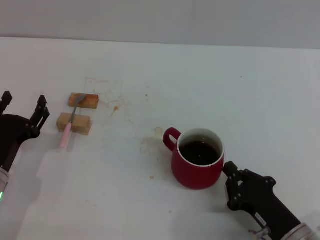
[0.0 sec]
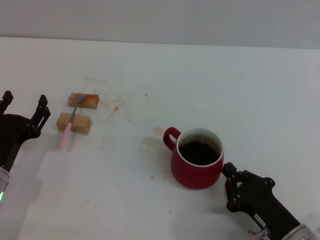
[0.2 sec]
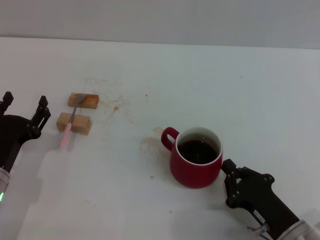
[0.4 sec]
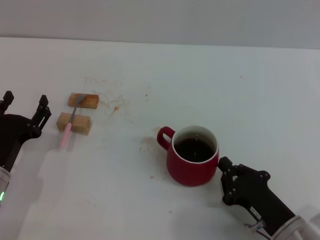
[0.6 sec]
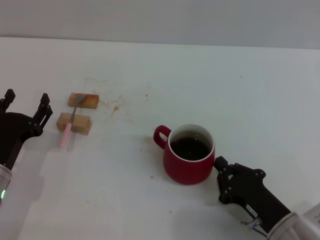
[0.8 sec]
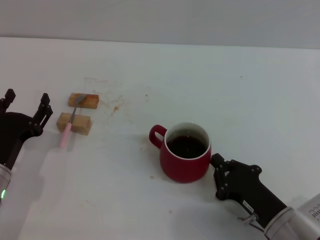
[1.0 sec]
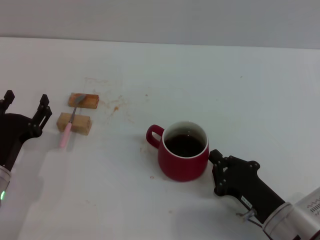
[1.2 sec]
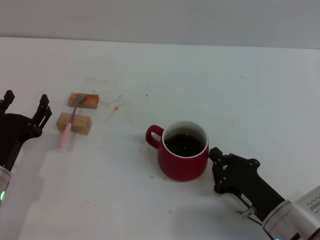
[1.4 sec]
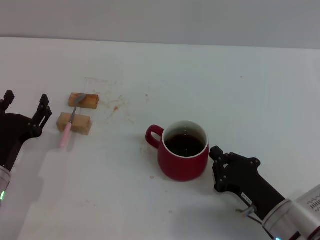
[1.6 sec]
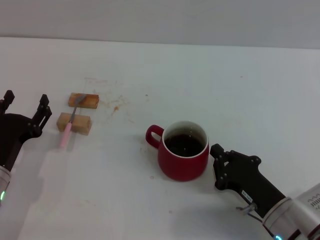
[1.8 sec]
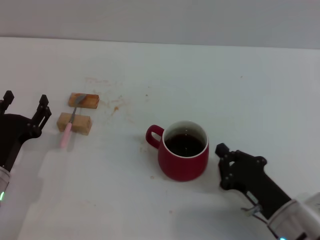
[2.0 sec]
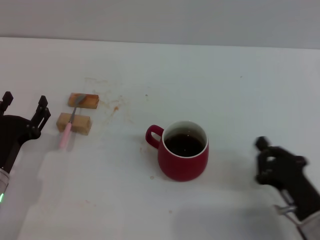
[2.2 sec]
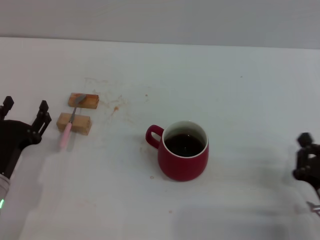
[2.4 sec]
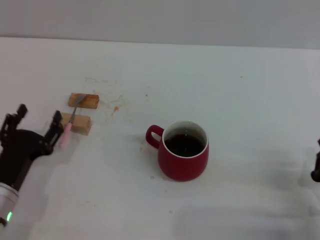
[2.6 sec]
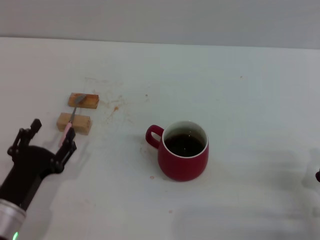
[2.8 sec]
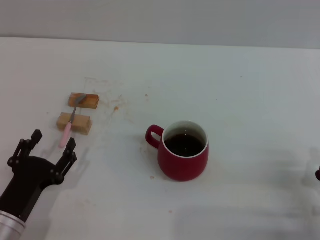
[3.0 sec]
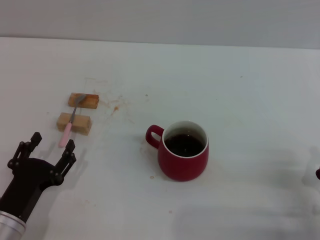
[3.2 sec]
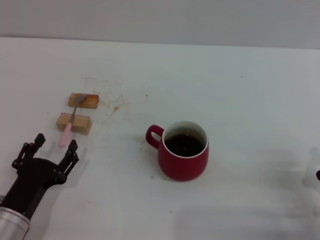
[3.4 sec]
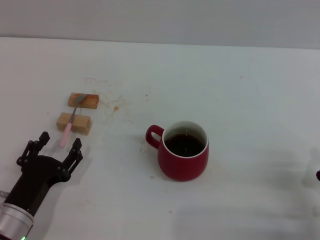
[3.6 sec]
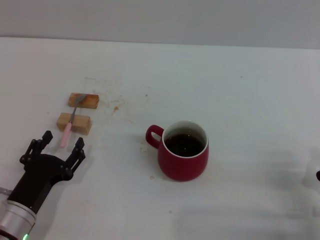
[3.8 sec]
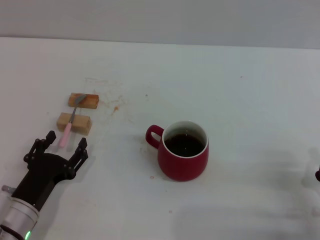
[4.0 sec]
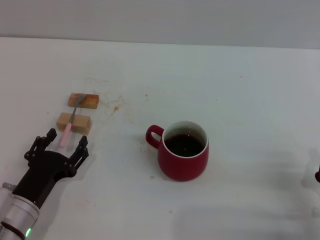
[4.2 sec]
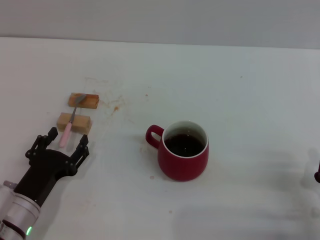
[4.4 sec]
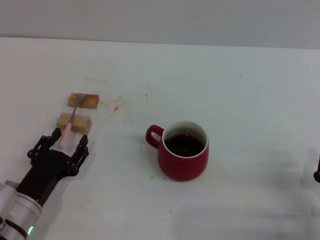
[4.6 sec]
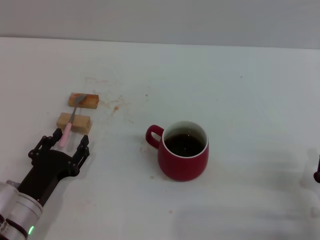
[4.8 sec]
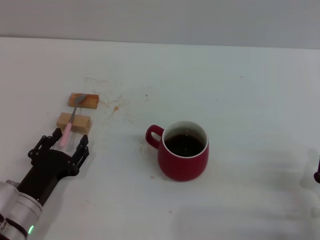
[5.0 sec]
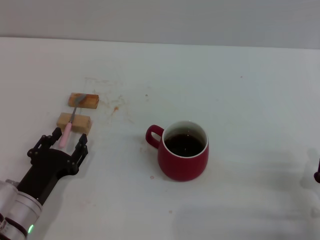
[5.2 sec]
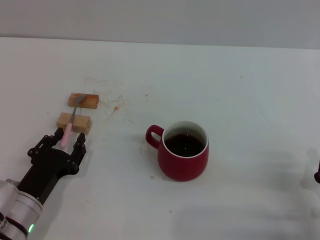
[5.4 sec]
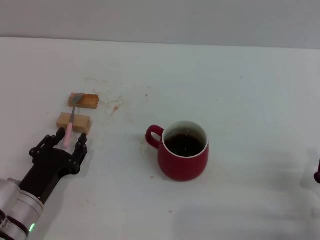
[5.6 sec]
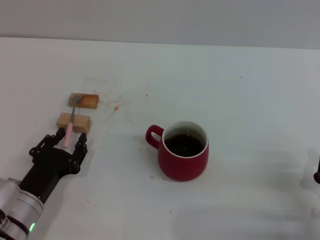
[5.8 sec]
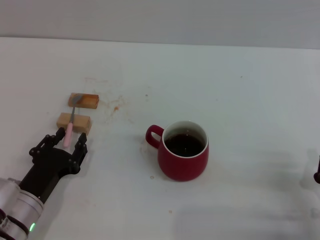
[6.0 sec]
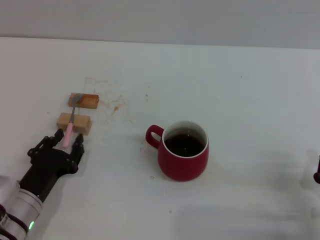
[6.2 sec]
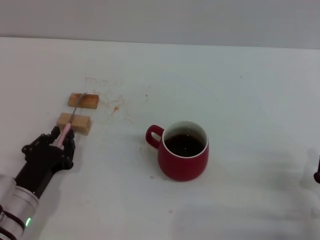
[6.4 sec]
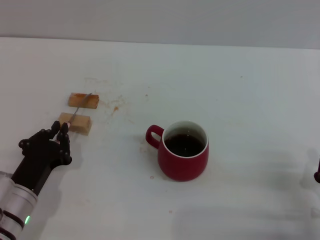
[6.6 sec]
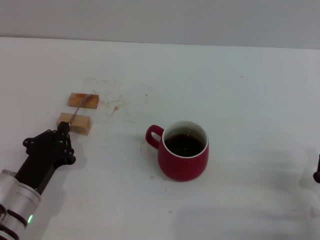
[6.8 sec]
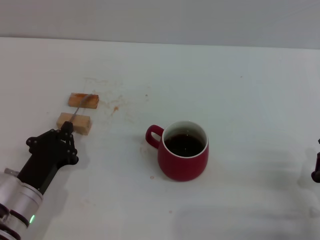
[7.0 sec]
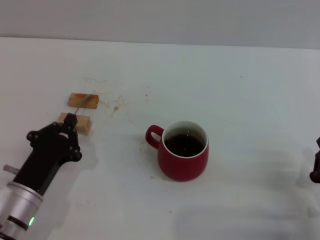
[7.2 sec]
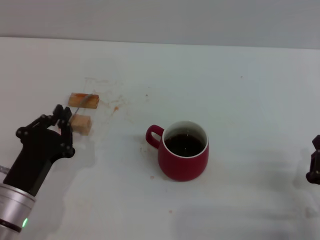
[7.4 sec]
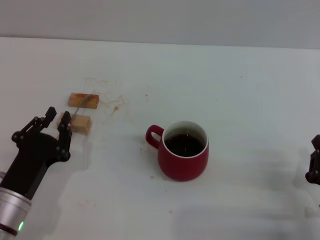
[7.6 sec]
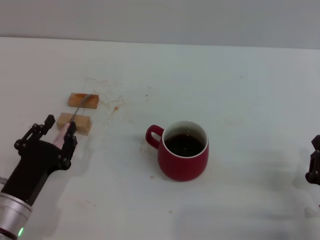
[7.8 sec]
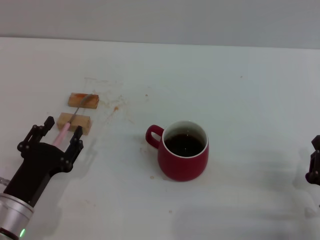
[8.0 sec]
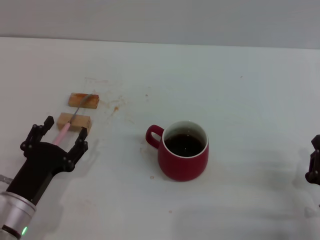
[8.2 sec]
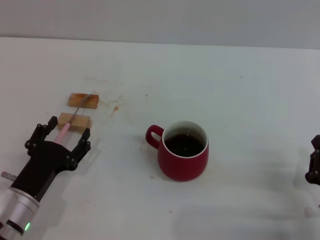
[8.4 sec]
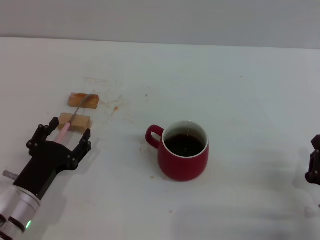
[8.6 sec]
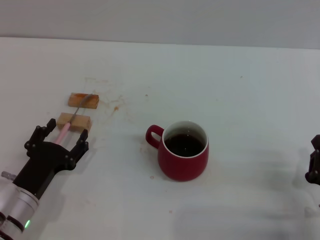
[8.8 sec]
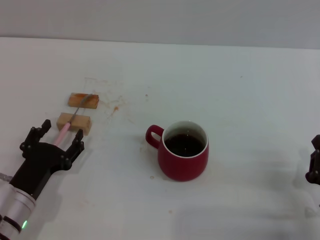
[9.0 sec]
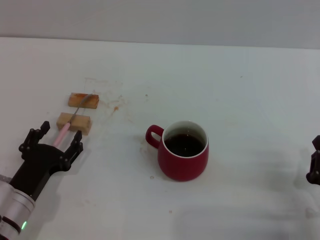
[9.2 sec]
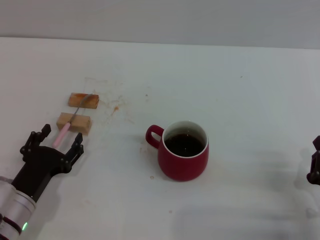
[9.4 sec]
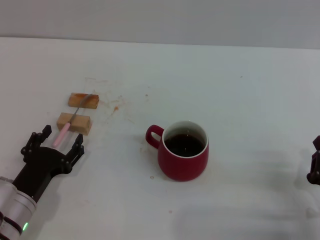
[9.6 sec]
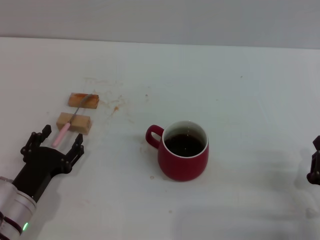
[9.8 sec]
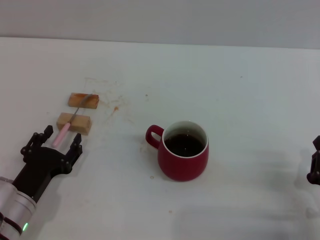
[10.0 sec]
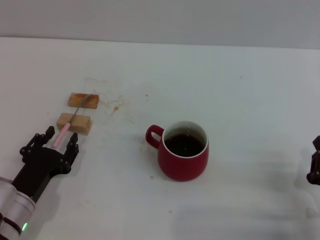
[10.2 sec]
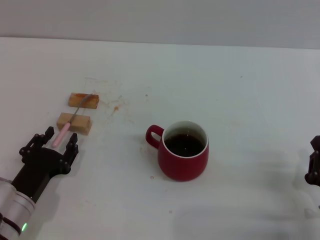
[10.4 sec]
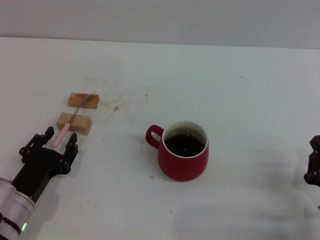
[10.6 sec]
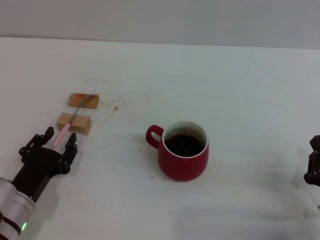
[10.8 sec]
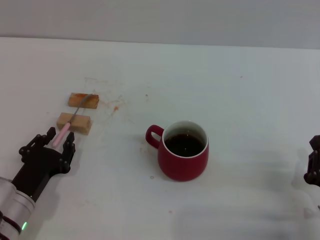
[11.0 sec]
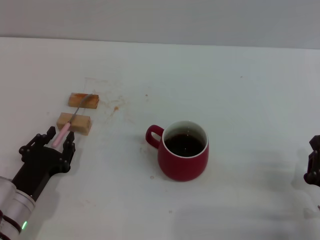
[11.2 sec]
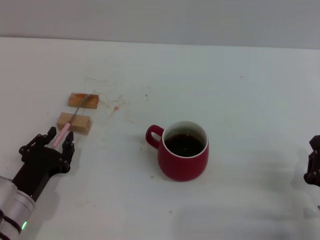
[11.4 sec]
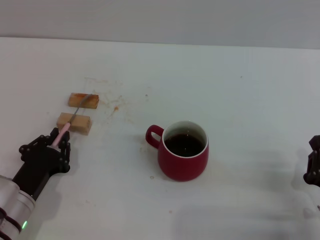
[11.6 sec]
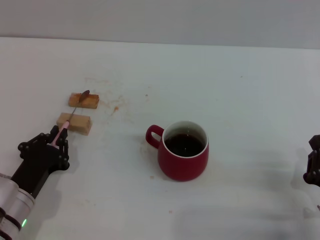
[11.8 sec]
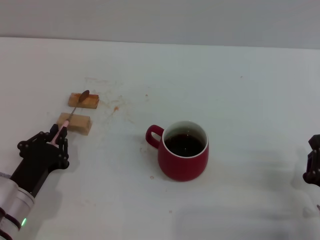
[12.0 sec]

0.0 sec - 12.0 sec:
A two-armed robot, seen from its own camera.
Task of the whole recording: Move the red cup to the center, lift the pink spoon, stir it three times in the cup, and put the spoon into the cup.
Step, 2.2 sec - 11.6 sec: Grasp the spoon with left gripper.
0.0 sec - 1.6 sec: There are only small adjustments of the grippers.
1.6 sec - 3.0 sec: The left gripper is displaced backward by about 5 cm; the right gripper is displaced to the right by approximately 10 cm.
3.0 sec - 4.4 sec: The grippers stay close to where they were, moving slightly.
4.4 sec - 6.0 sec: The left gripper closes its fingers.
6.0 sec - 7.6 sec: The left gripper closes its fingers.
7.6 sec - 9.0 sec: The left gripper opens up.
9.0 sec - 10.4 sec: Neither gripper changes place.
10.4 sec - 12.0 sec: The left gripper closes its fingers.

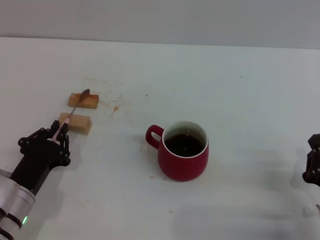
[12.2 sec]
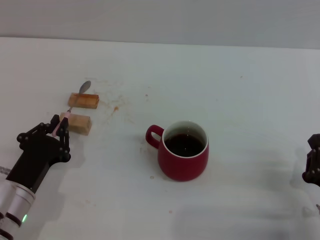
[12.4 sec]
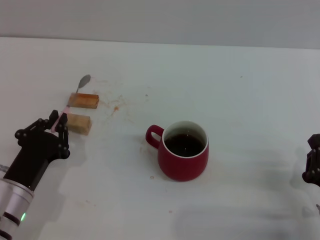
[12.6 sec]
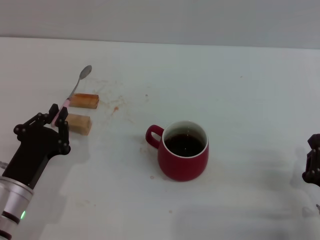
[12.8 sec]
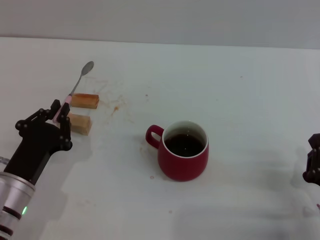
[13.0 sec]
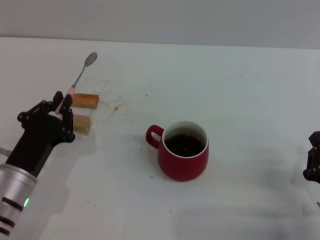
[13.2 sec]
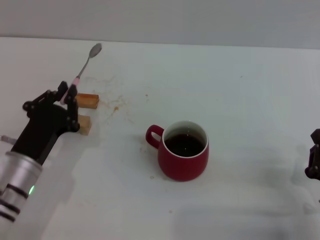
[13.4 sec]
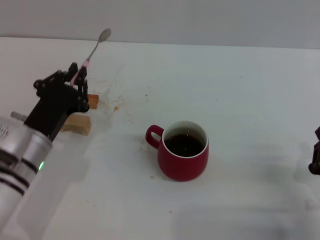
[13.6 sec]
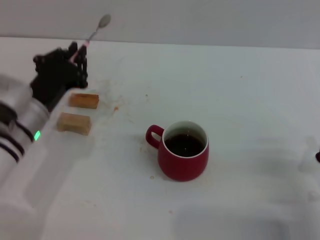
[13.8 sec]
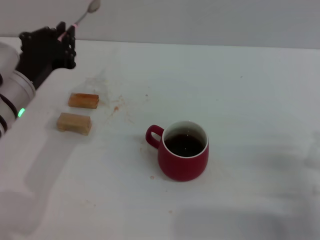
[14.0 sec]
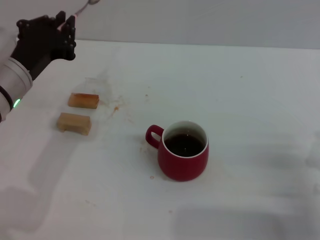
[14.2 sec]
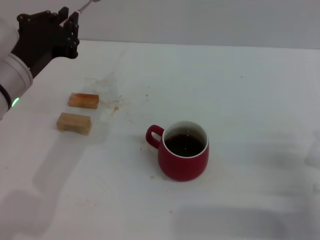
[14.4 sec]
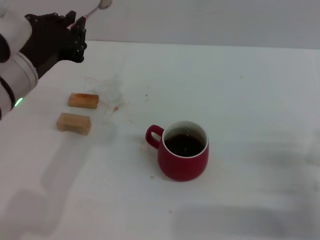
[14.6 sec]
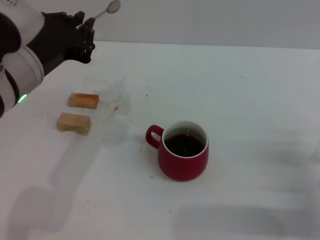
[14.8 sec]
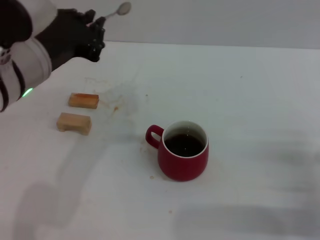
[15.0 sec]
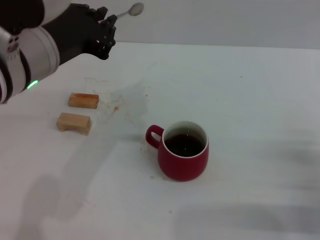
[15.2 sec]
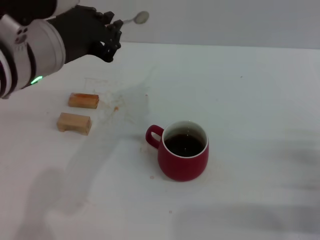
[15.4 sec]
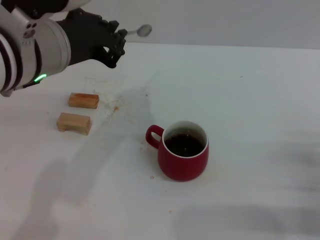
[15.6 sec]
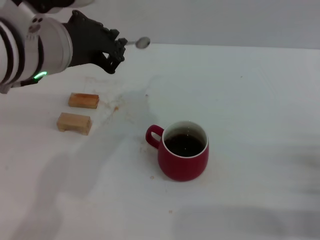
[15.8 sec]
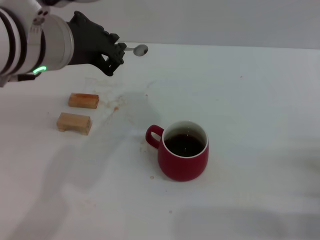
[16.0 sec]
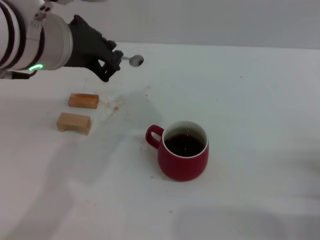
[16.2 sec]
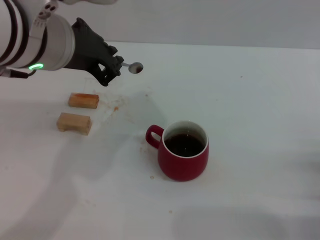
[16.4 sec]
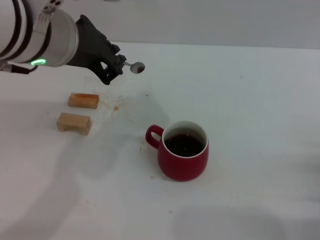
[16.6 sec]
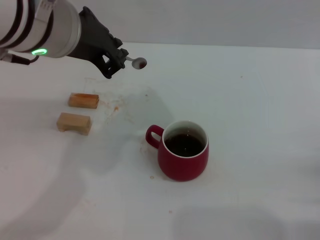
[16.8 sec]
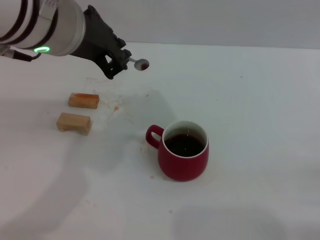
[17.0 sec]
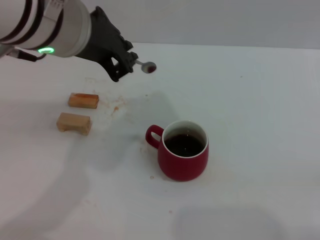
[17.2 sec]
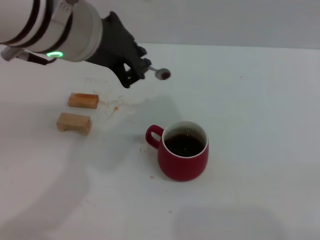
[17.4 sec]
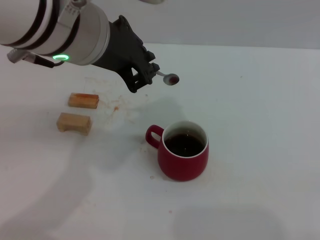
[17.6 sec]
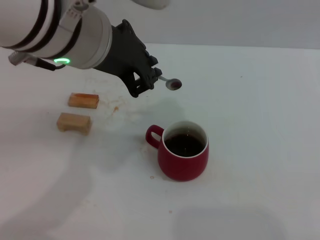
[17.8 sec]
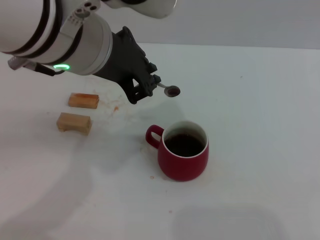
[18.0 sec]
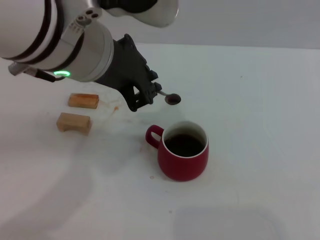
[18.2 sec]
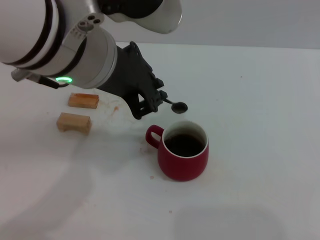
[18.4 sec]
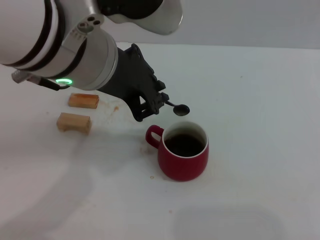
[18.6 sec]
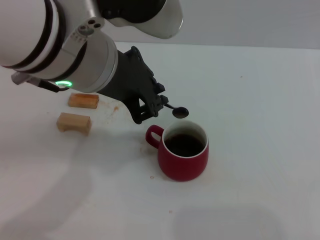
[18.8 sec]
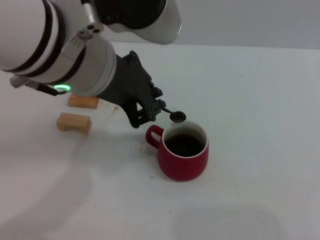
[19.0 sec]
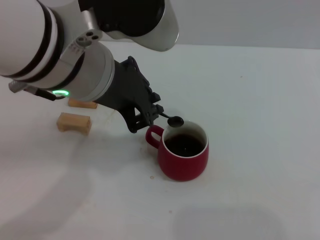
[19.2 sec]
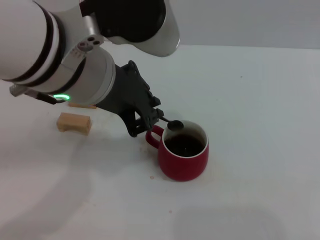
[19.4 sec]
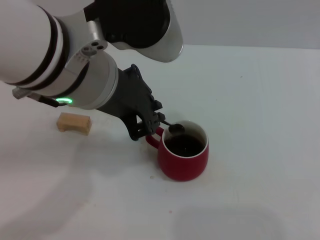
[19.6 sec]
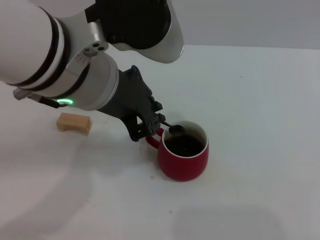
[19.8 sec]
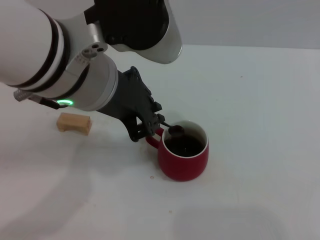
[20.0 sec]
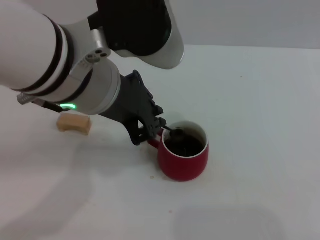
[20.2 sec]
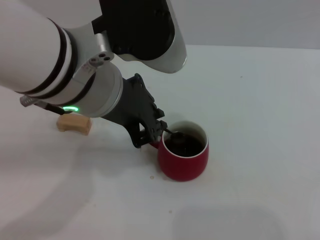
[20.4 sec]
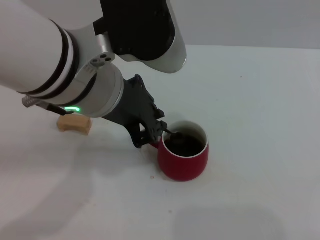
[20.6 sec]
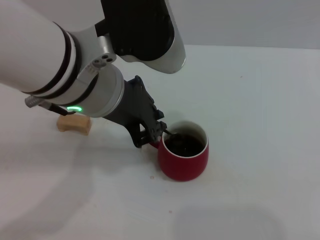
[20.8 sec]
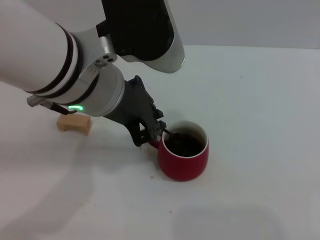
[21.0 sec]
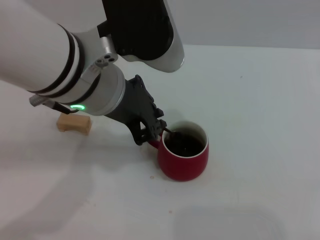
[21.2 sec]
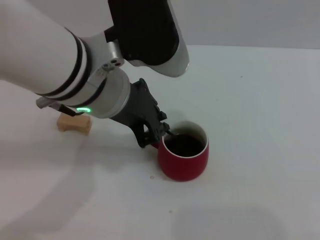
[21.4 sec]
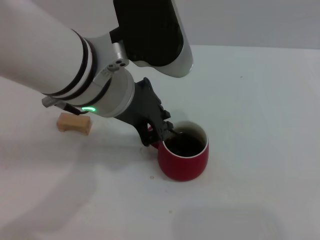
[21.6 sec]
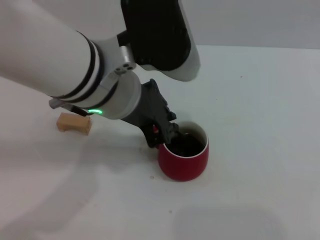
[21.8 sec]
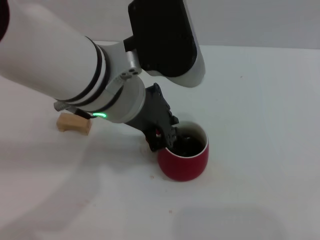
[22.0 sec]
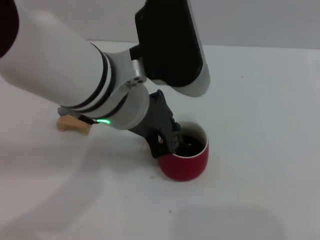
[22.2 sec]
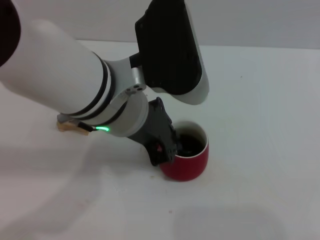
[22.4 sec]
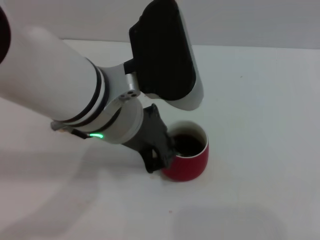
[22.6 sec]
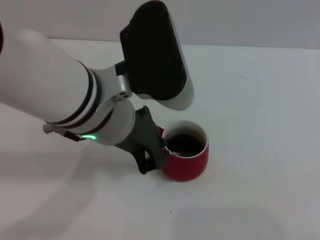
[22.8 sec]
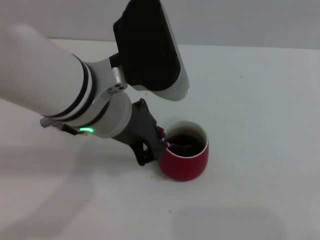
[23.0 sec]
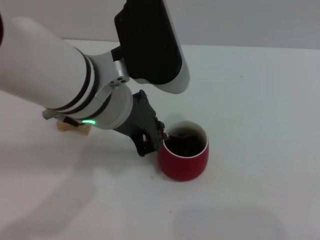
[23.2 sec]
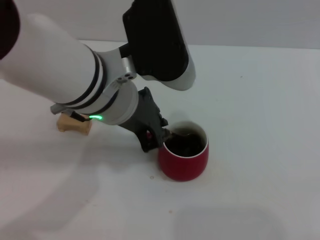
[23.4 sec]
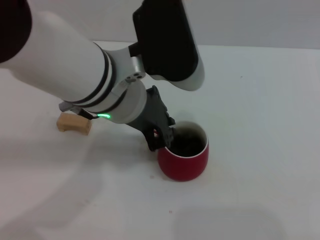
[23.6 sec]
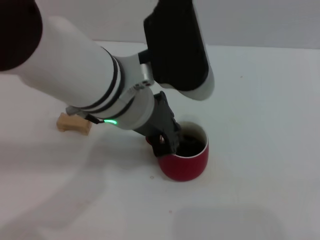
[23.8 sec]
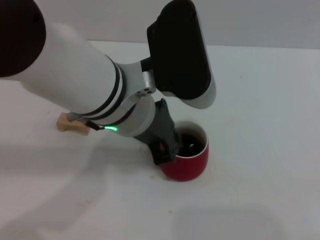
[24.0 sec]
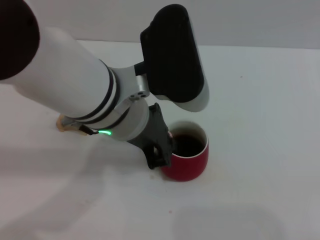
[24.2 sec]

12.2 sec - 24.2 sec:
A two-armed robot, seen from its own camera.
Task of the whole recording: Move the red cup to the center, lift the pink spoon, stir it three times in the cup, and put the spoon into the cup.
12.2 sec - 13.8 sec: The left gripper is displaced upward and forward by about 10 cm.
13.8 sec - 15.2 sec: The left gripper travels upward by some 15 cm.
15.2 sec - 16.6 sec: The left gripper moves roughly 5 cm.
16.6 sec - 18.2 sec: The right gripper is displaced to the right and backward by roughly 10 cm.
18.2 sec - 21.2 sec: There are only small adjustments of the grippers.
22.6 sec - 24.2 sec: The grippers move only a little.
